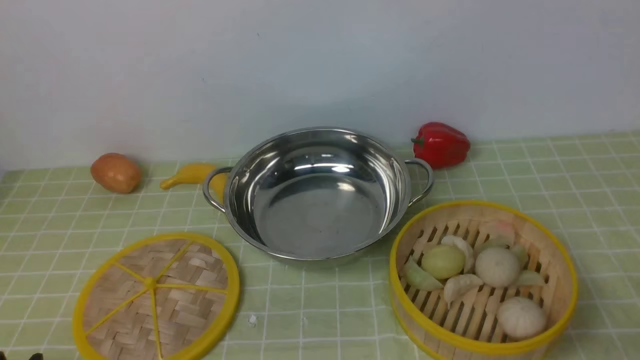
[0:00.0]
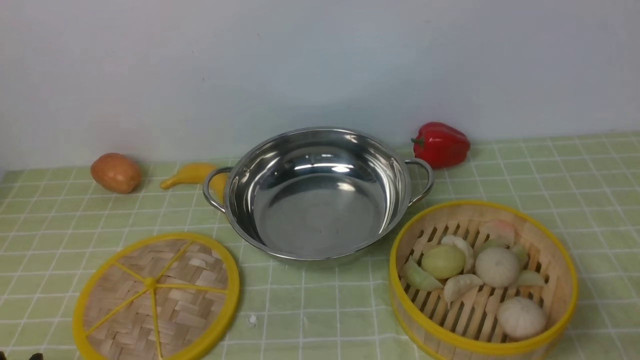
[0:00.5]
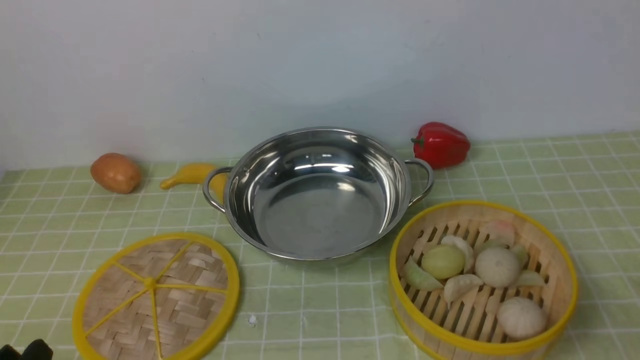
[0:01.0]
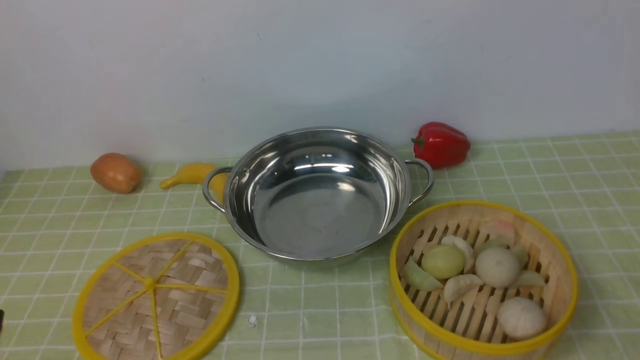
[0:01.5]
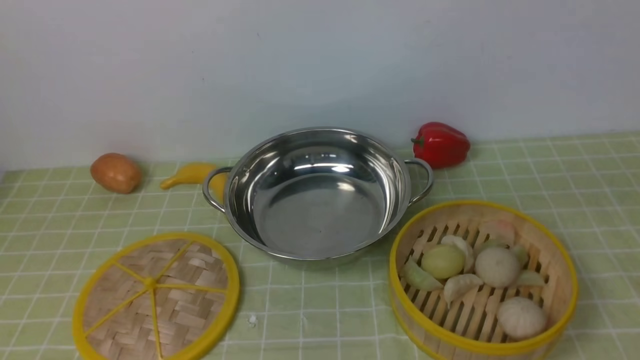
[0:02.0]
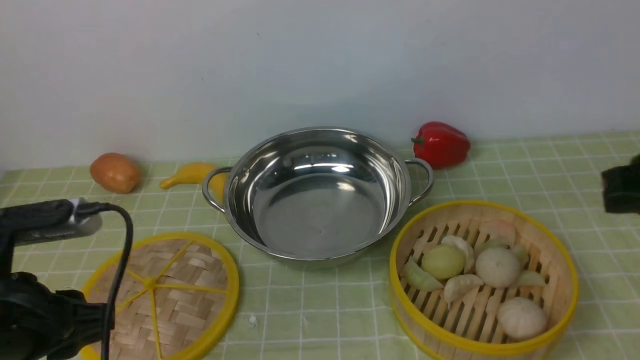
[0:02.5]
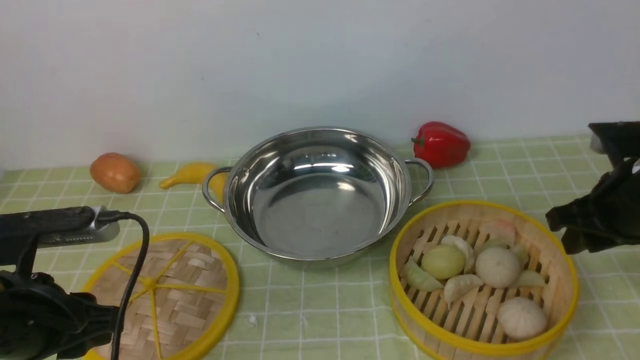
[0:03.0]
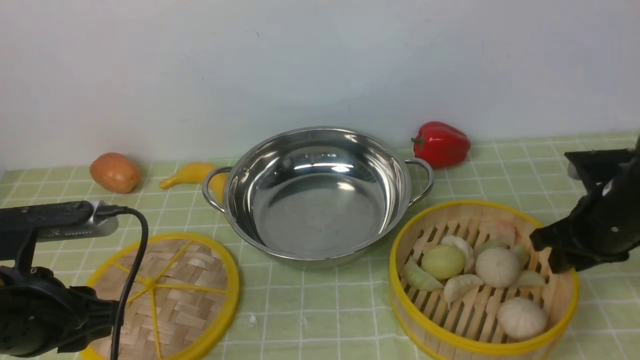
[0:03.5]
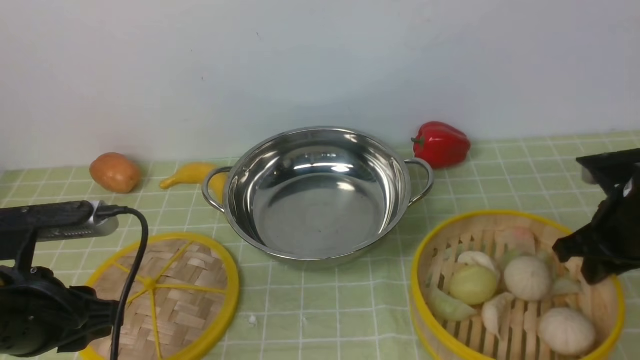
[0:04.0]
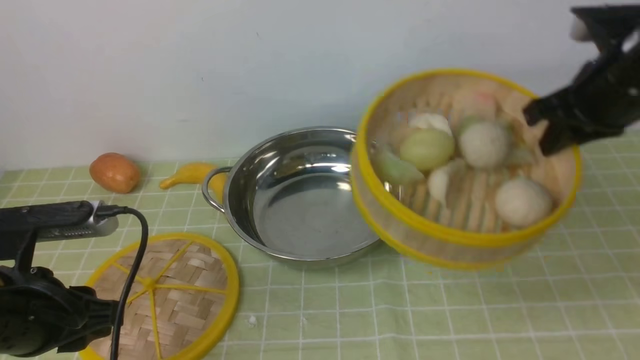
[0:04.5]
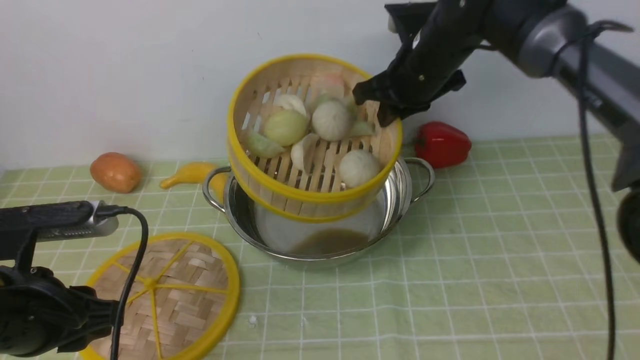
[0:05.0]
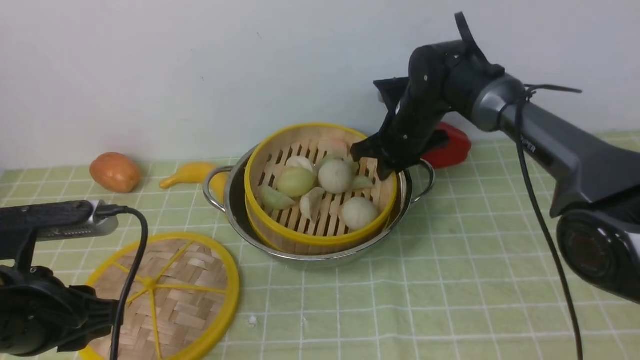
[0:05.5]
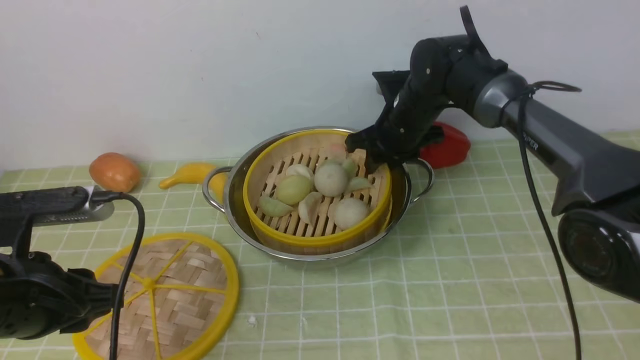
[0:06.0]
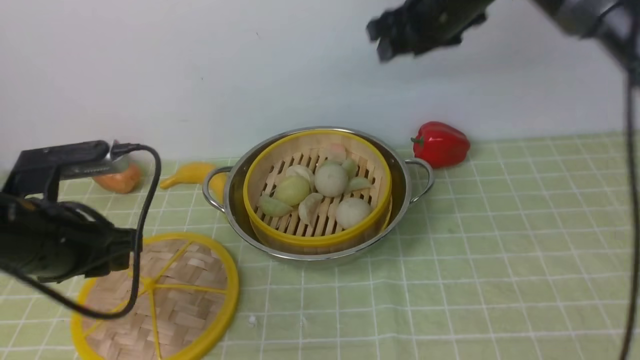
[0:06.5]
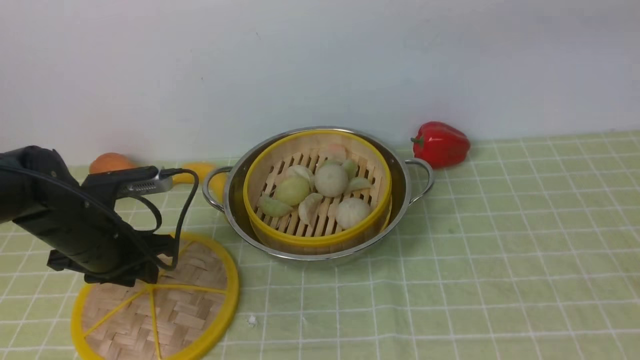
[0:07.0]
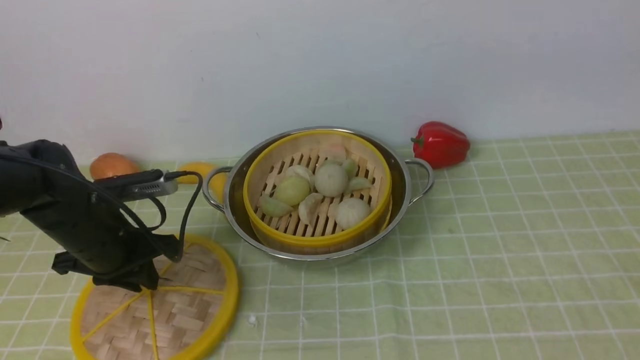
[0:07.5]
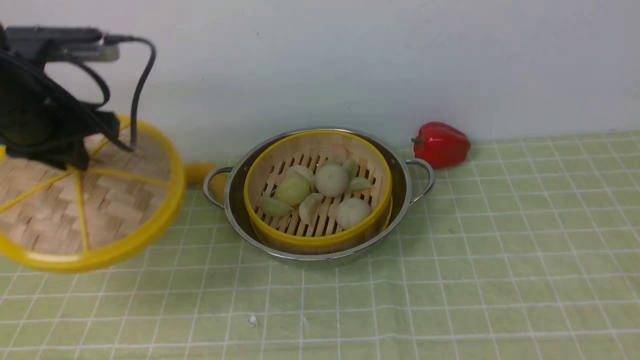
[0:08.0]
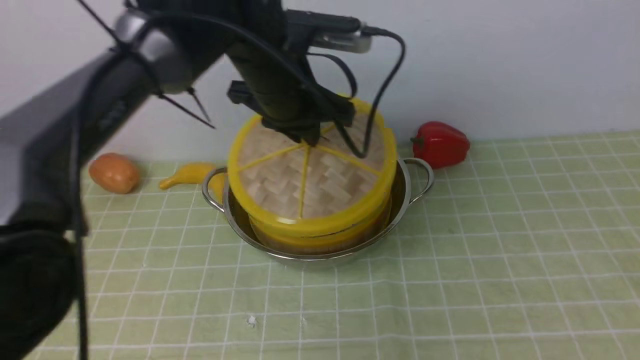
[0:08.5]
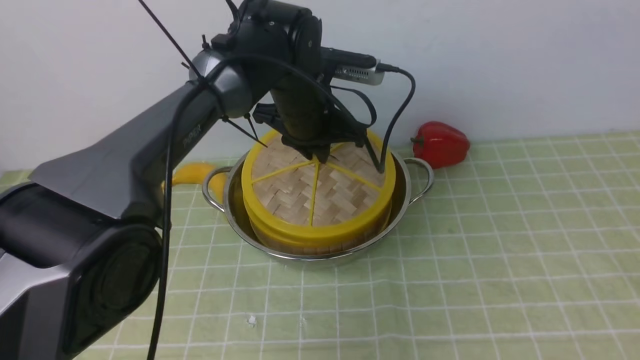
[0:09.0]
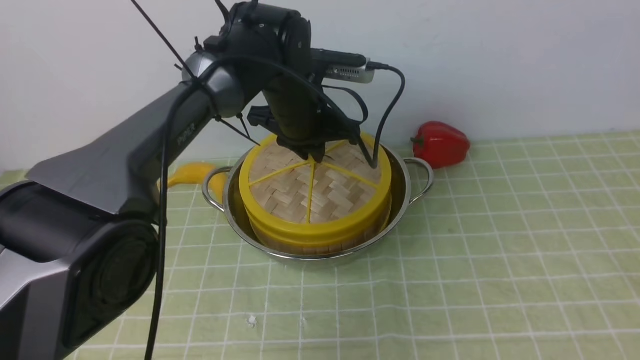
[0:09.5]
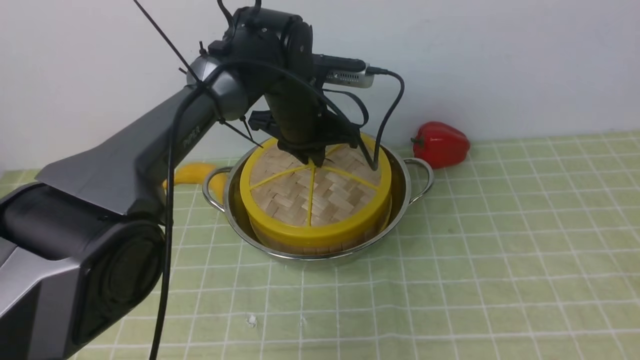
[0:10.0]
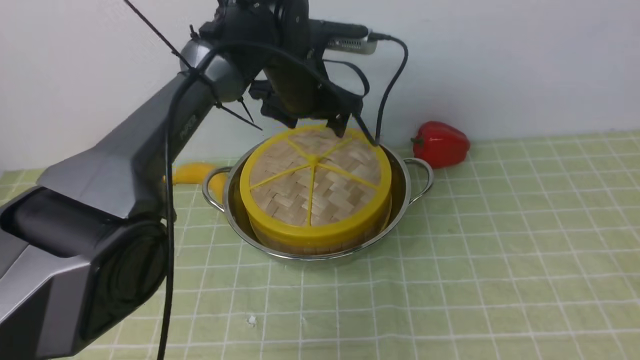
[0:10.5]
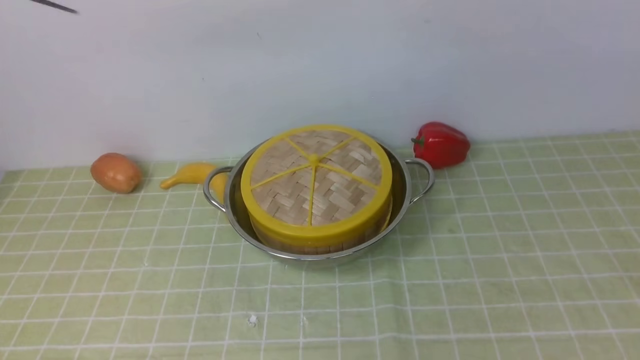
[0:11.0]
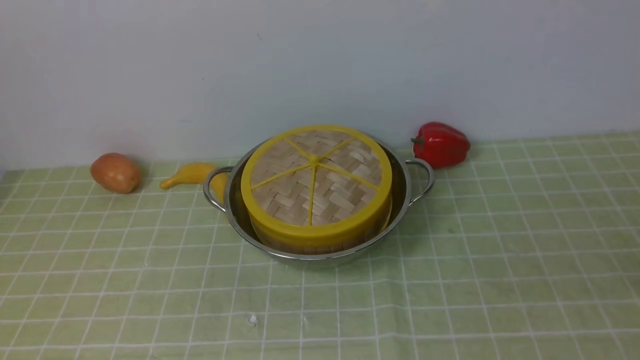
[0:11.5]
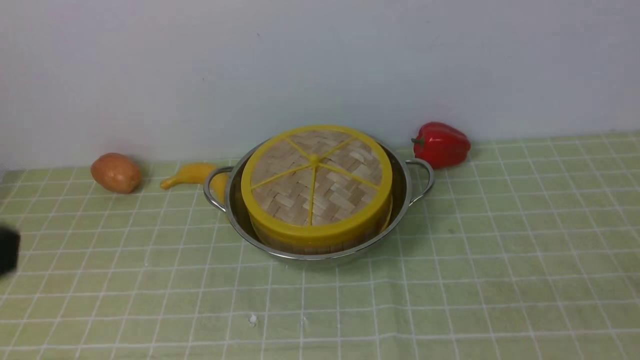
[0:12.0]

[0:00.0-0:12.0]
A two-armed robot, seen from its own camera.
Task of the whole recording: place the steamer in the pot on the green tablecloth, and put the lid on the steamer.
Step, 0:00.0 to 0:04.0: use the right arm to lift the steamer closest to it.
Step, 0:05.0 to 0:06.5: use the right arm to put the steamer into the iron steamer pot in the middle.
Step, 0:07.0 to 0:07.5: use the left arm to lift the lid of the steamer.
Step, 0:08.0 to 0:11.0: use the left arm to place the steamer lid on the steamer.
0:02.0 to 0:04.0: The right gripper travels forward and downward by approximately 25 cm, and closes. The left gripper is displaced forward and downward by some 15 cm.
0:04.0 to 0:06.0: The right gripper heads to the left and forward, covering some 25 cm, and opens.
0:06.0 to 0:08.0: The right gripper is displaced backward, upward and to the right by some 50 cm, and opens up. The left gripper goes about 20 cm forward and upward.
0:08.0 to 0:10.0: The left gripper travels to the right, forward and downward by about 25 cm.
0:10.0 to 0:12.0: The left gripper travels backward, upward and to the left by approximately 50 cm, and opens, then closes once more. Meanwhile the right gripper goes some 20 cm downward, and closes its fingers.

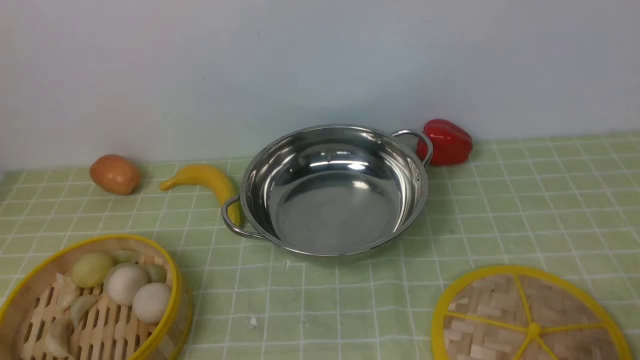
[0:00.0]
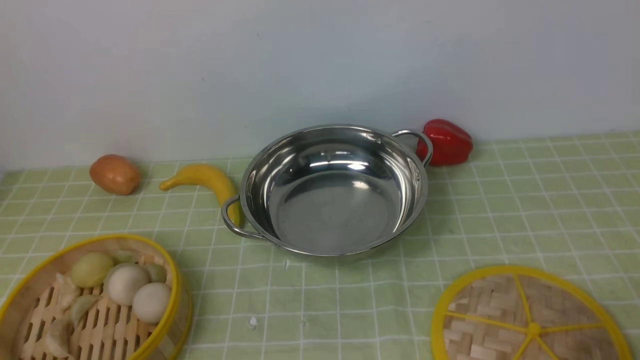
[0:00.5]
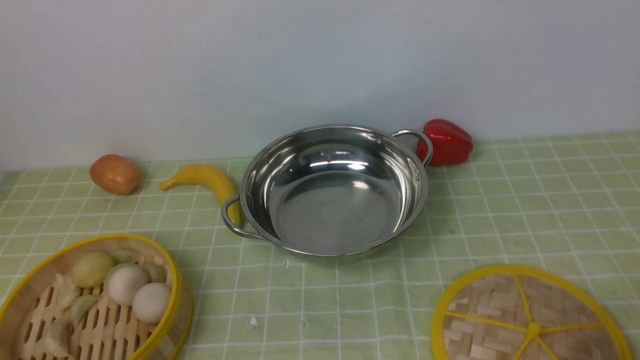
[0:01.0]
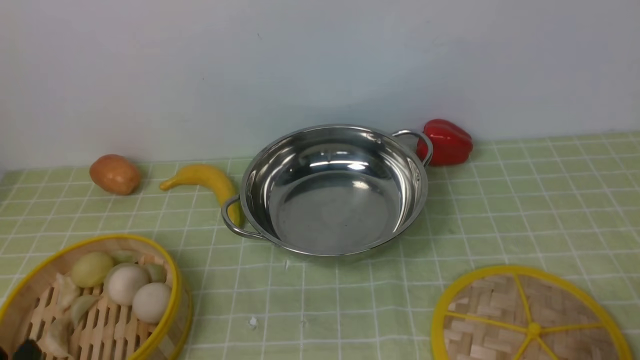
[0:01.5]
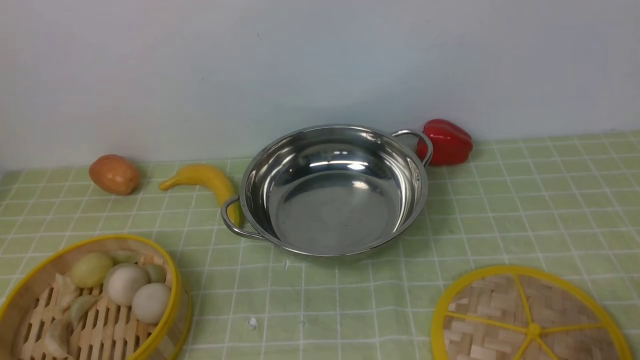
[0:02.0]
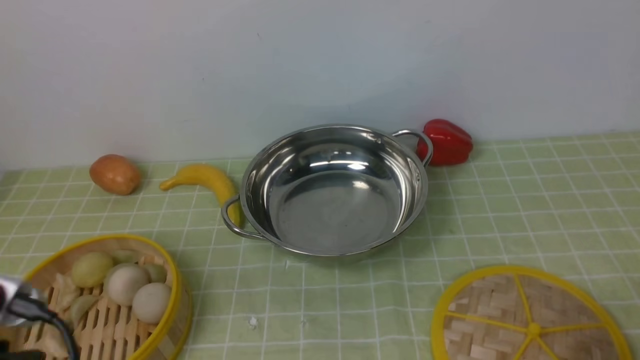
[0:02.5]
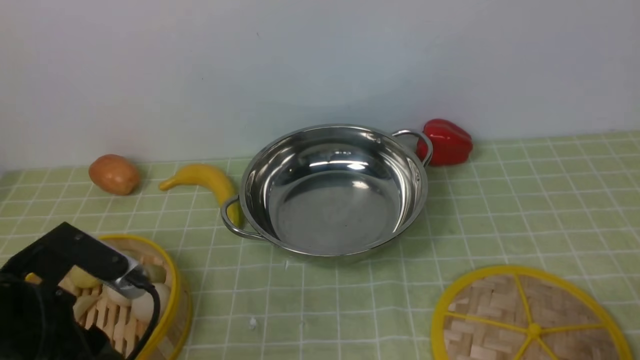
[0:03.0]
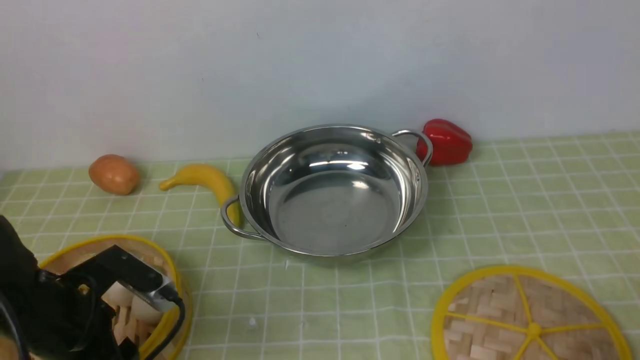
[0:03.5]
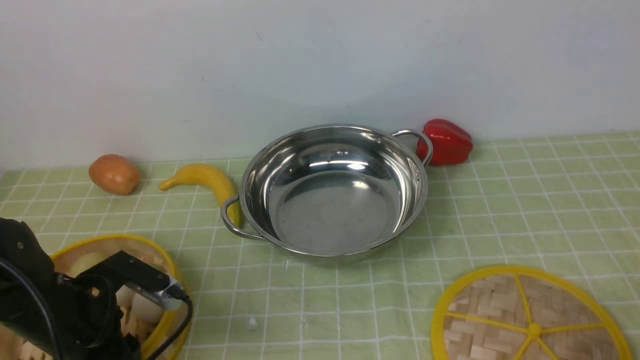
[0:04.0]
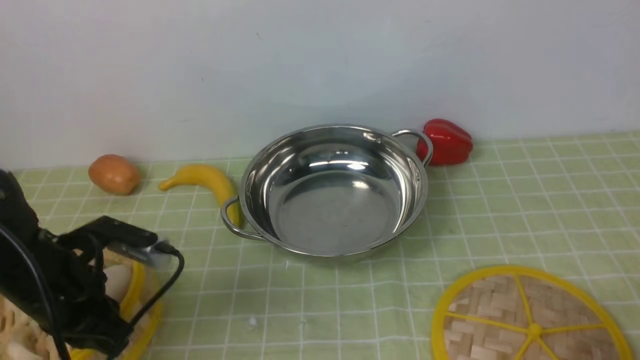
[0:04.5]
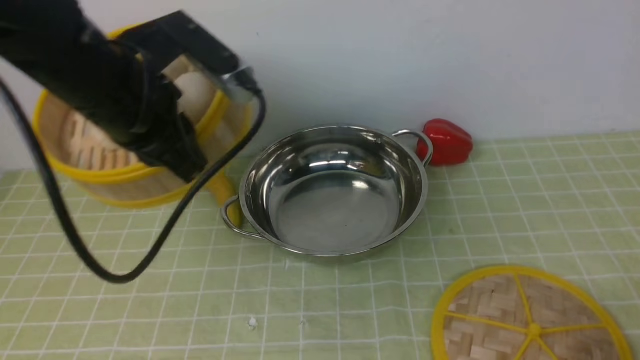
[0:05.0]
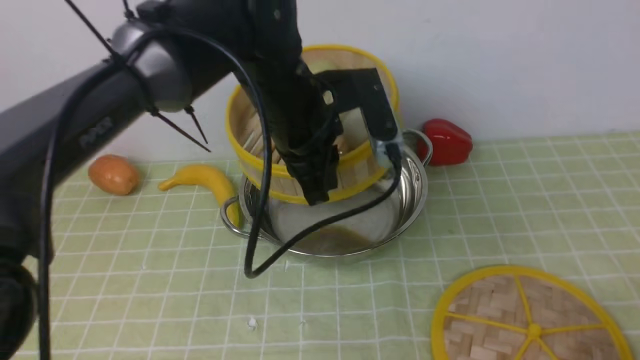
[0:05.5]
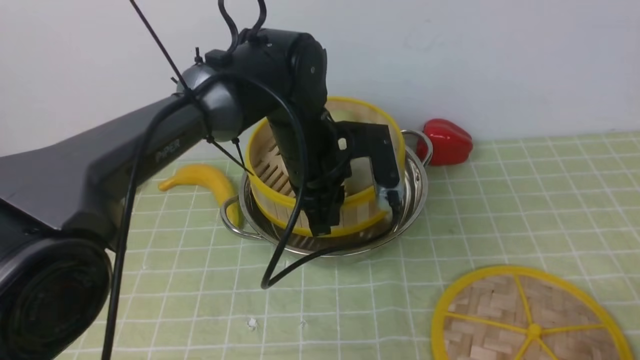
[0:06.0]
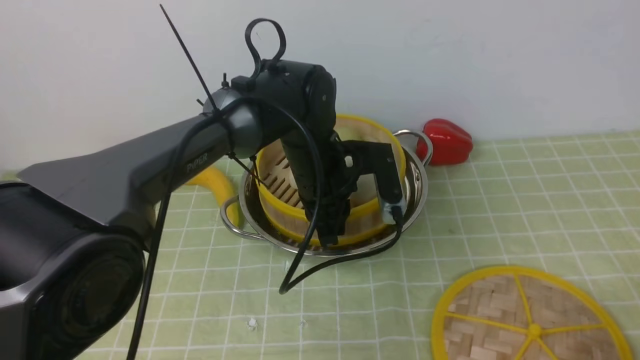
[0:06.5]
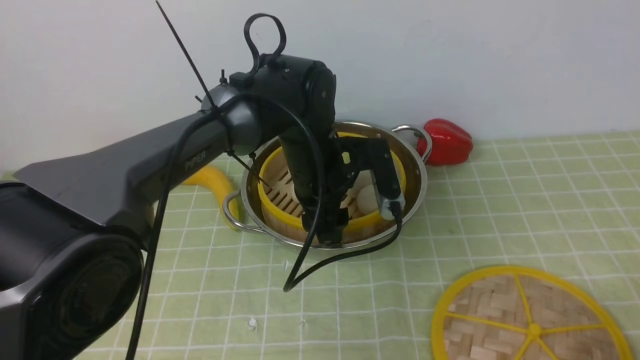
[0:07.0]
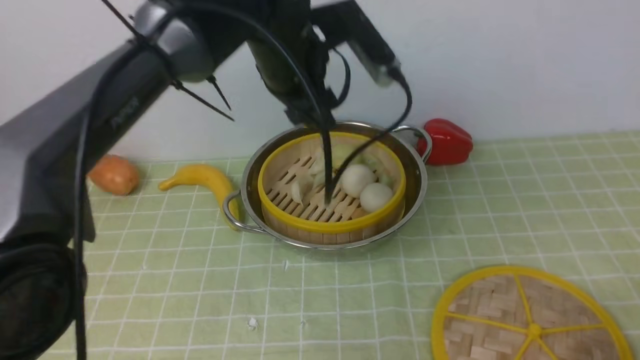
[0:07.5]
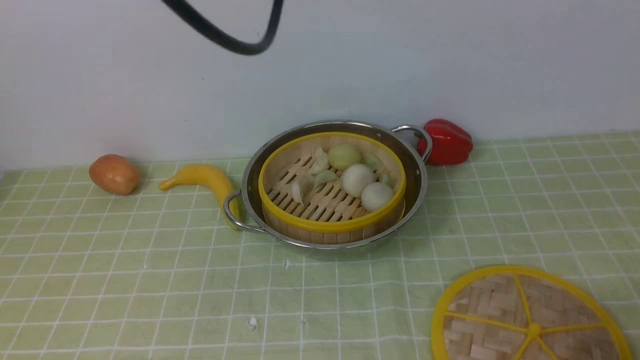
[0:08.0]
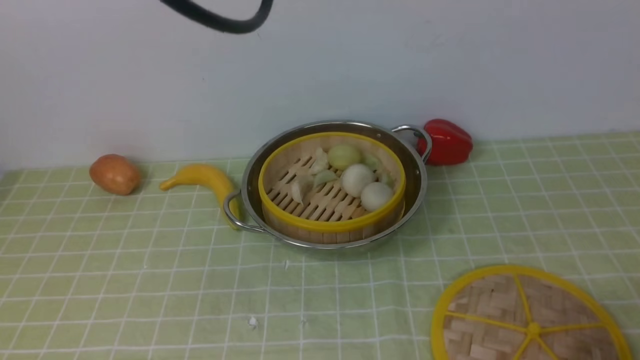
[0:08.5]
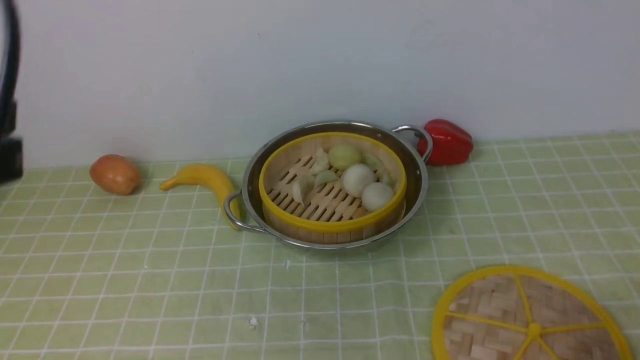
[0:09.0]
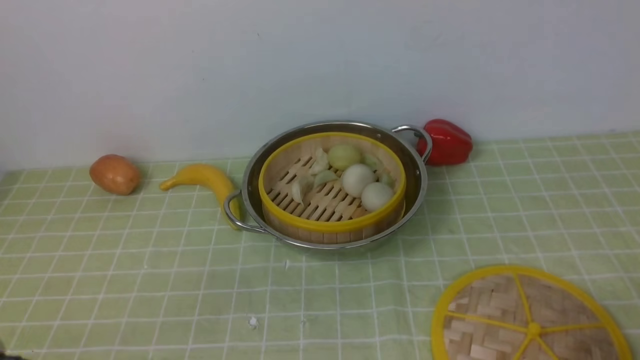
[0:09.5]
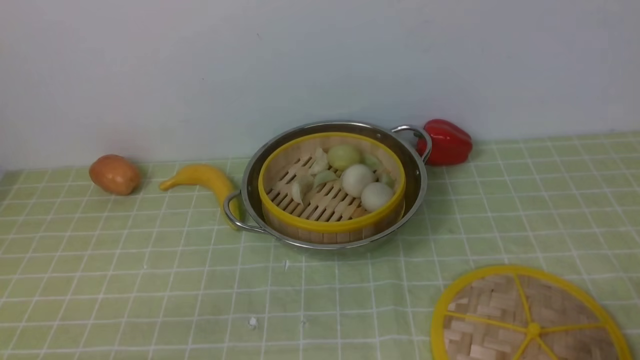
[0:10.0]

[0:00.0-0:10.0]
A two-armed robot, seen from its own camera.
Task of the whole recording: place the steamer in the pot on the green tablecloth, and put the lid on the steamer.
Step, 0:00.0 to 0:05.0: use the left arm to lift the steamer closest to it.
Step, 0:05.5 to 0:07.0: use the left arm to put the steamer into the iron steamer pot in the middle.
0:02.0 to 0:04.0: The left gripper is displaced forward and downward by some 20 cm, and opens, then closes again.
0:04.0 to 0:06.0: The left gripper heads to the right and forward, covering some 30 cm, and closes.
0:06.0 to 0:08.0: The left gripper is displaced upward by about 25 cm, and opens, then closes once more.
0:08.0 to 0:10.0: The left gripper moves downward, backward and to the left, some 40 cm.
